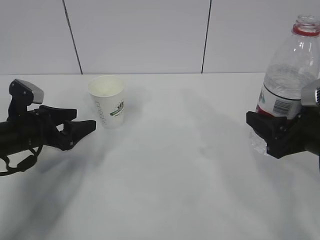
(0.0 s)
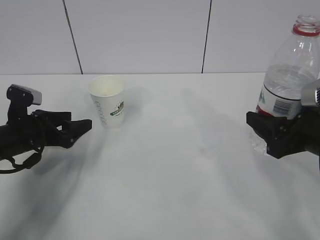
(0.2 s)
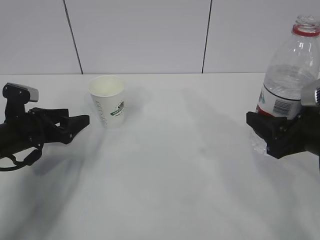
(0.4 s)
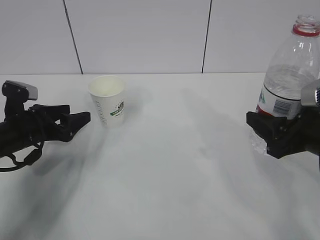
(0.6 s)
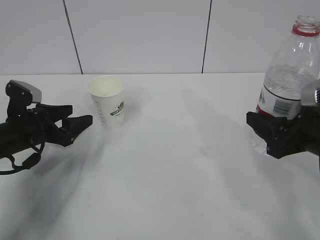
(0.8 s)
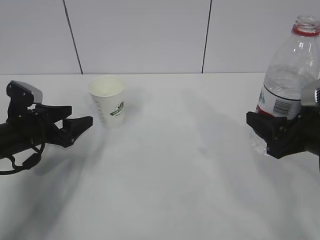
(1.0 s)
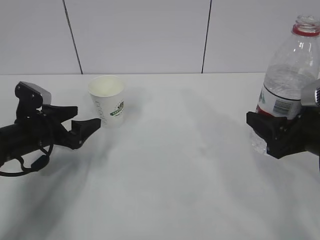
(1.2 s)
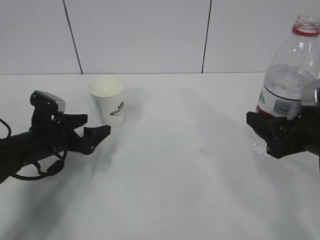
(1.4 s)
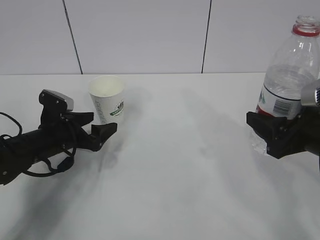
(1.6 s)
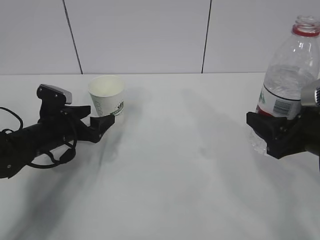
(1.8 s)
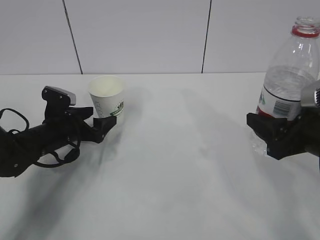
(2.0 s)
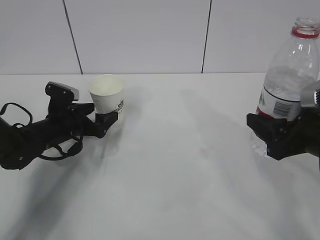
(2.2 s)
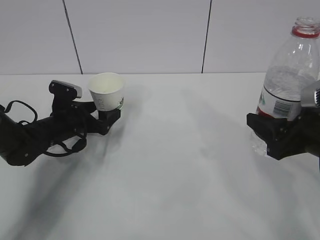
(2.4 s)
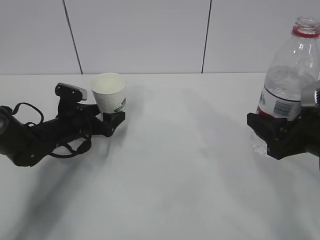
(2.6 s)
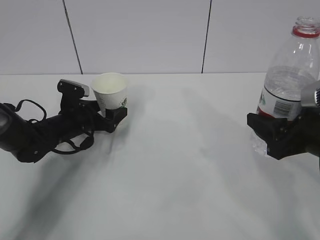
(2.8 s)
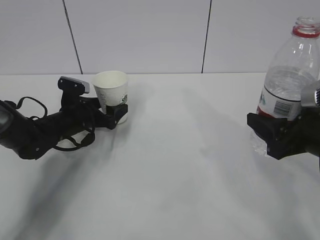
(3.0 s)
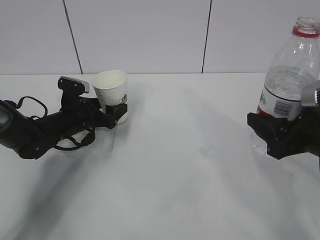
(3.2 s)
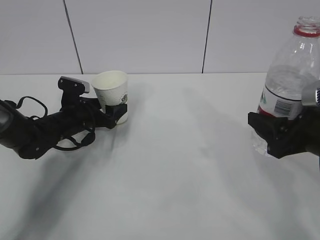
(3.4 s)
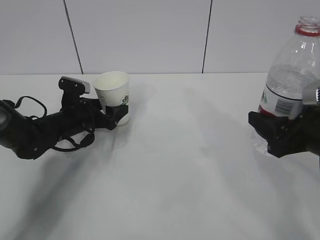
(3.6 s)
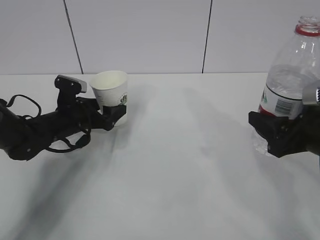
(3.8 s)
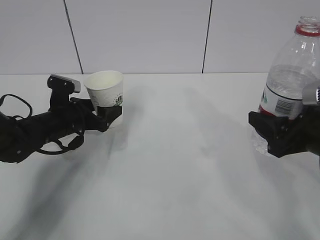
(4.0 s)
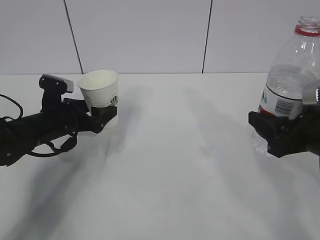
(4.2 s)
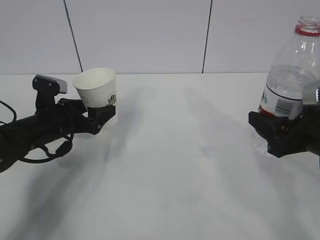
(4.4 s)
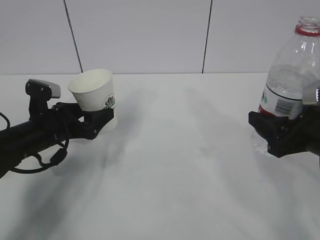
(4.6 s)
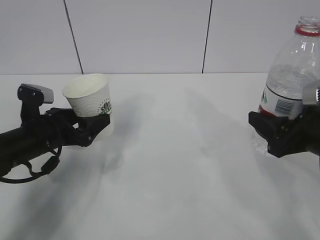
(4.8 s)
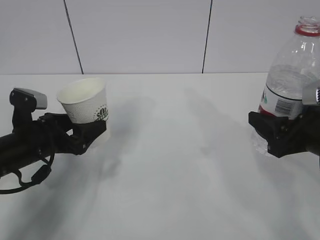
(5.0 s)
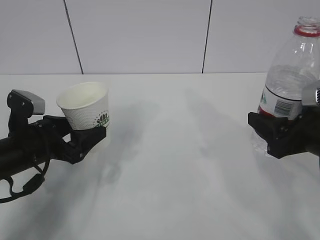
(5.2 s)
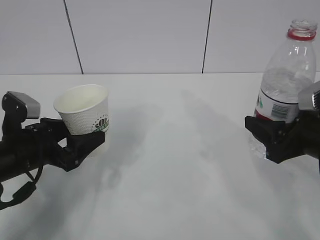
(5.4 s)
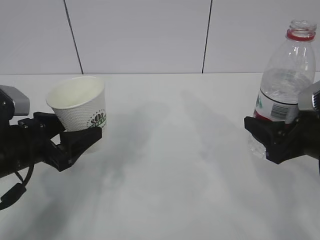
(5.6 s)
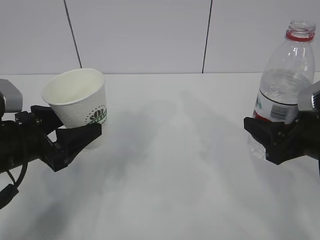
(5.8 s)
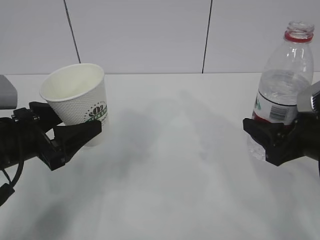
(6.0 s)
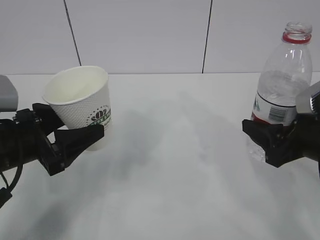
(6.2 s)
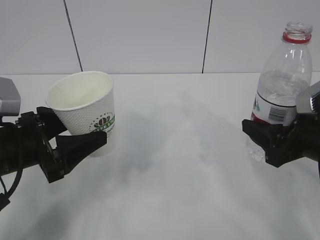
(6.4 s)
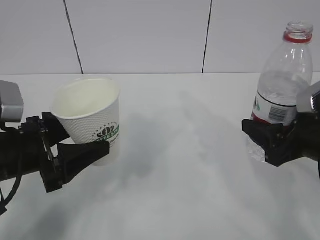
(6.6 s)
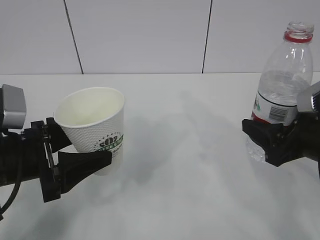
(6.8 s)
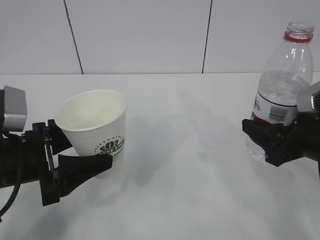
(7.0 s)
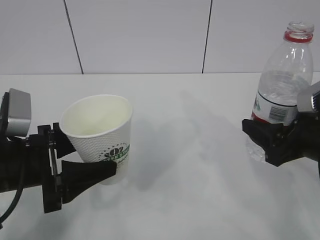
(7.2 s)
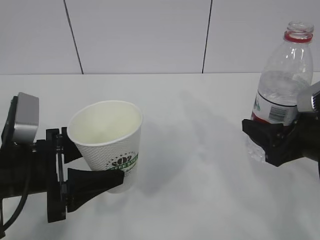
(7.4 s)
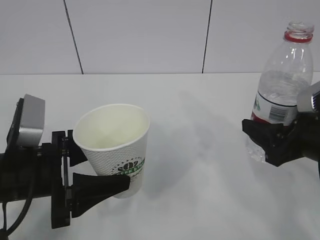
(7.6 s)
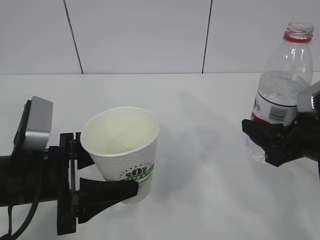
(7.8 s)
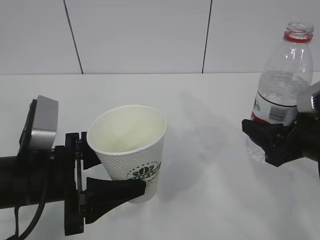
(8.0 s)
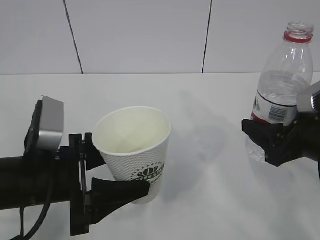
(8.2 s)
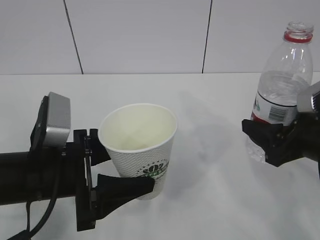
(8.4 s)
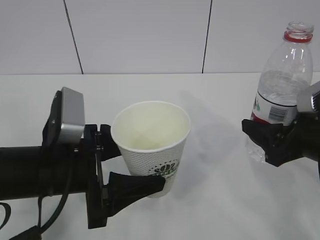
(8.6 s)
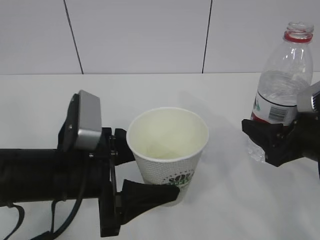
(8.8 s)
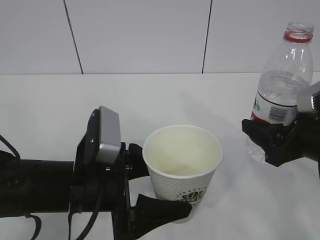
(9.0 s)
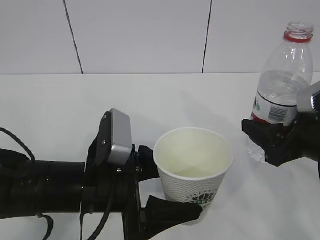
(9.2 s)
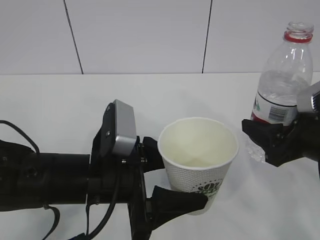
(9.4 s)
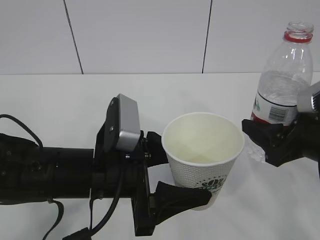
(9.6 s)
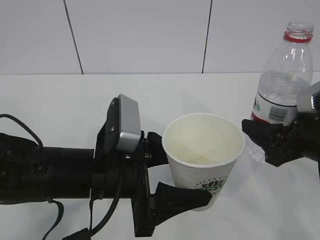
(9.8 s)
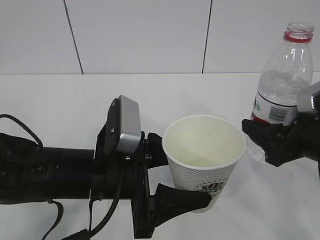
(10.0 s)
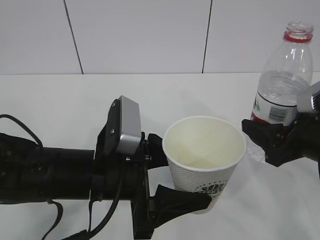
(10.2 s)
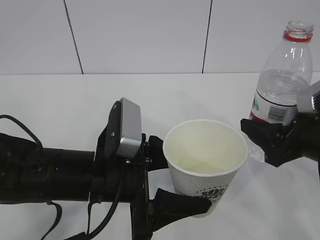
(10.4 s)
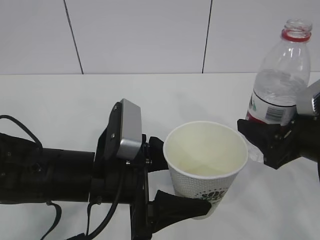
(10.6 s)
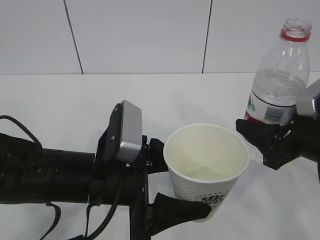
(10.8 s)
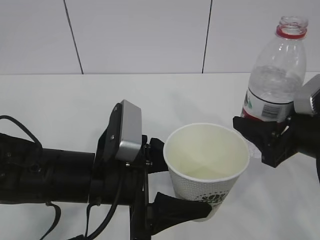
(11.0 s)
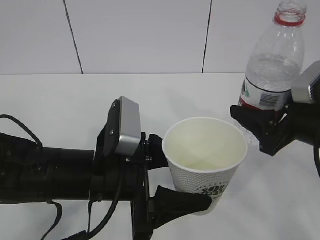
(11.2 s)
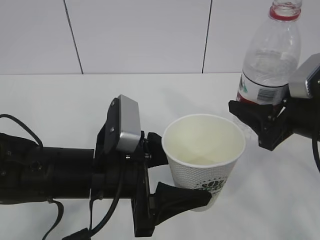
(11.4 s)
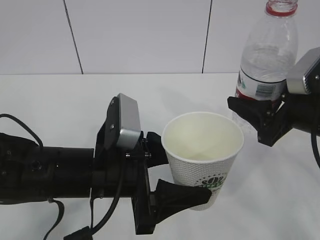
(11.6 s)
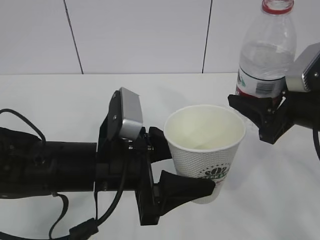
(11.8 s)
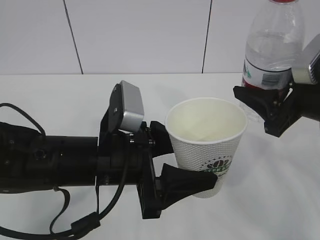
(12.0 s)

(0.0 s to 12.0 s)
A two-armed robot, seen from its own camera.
0.0 s - 1.6 s: The left gripper shifts by approximately 5 cm, and opens.
1.6 s - 3.0 s: The left gripper is displaced forward by roughly 5 cm.
3.0 s - 4.4 s: The left gripper goes about 5 cm backward, and closes.
4.4 s - 6.0 s: The left gripper moves backward and upward, roughly 15 cm.
6.0 s - 7.6 s: The left gripper ends up about 5 cm from where it was.
7.6 s - 9.0 s: The left gripper is displaced to the right by roughly 10 cm.
9.0 s - 10.4 s: The grippers move only a little.
10.4 s - 12.0 s: The right gripper is displaced upward by some 5 cm.

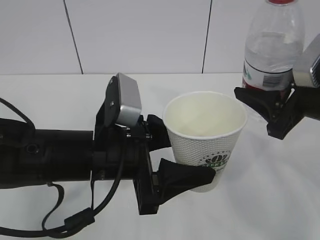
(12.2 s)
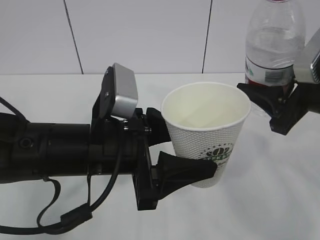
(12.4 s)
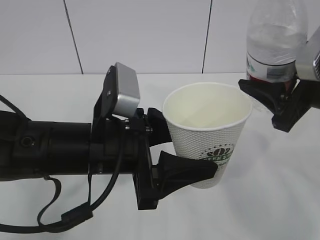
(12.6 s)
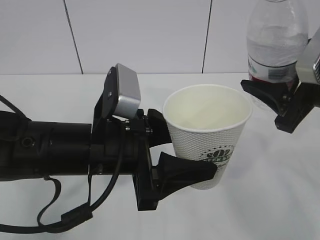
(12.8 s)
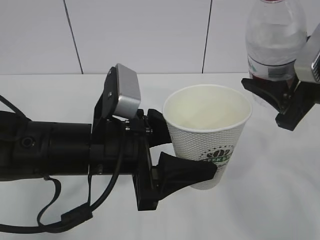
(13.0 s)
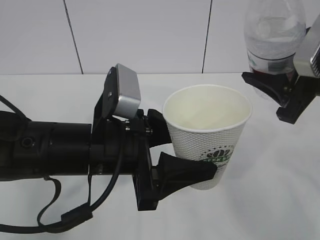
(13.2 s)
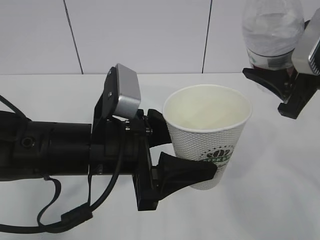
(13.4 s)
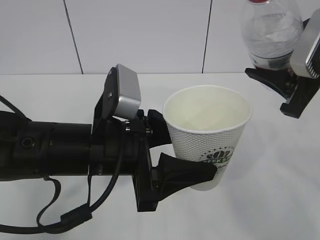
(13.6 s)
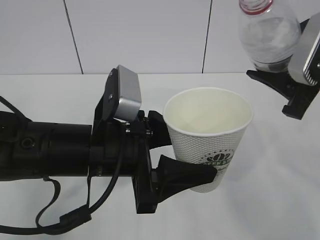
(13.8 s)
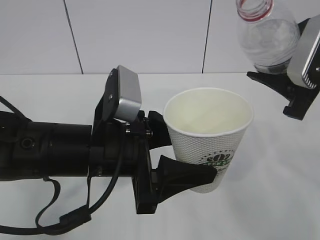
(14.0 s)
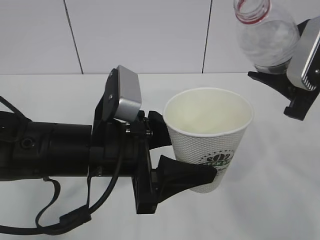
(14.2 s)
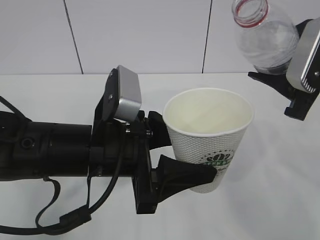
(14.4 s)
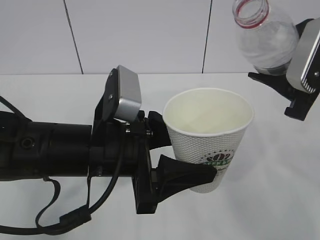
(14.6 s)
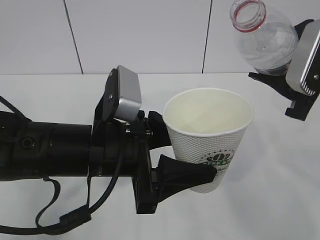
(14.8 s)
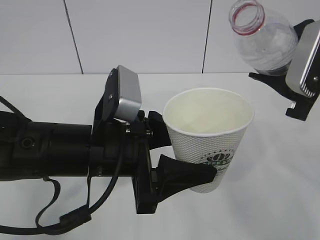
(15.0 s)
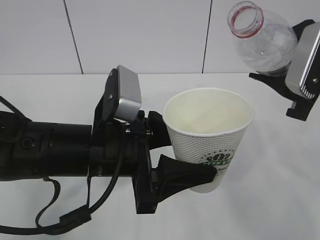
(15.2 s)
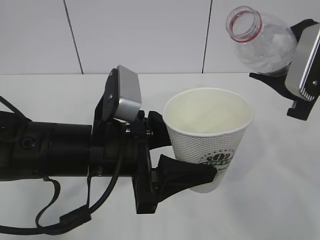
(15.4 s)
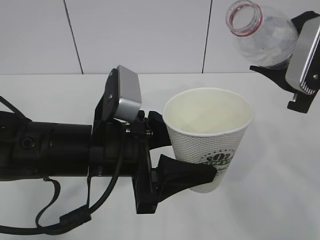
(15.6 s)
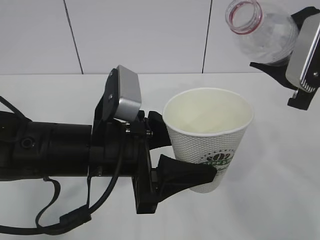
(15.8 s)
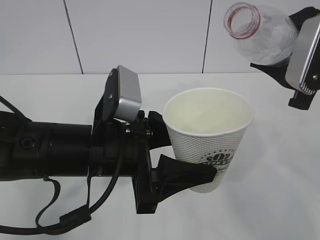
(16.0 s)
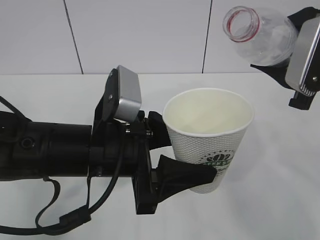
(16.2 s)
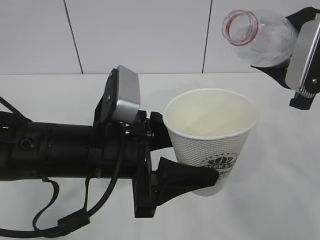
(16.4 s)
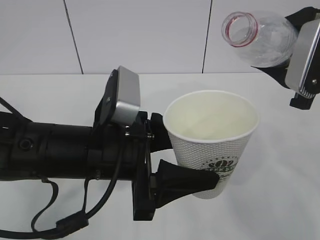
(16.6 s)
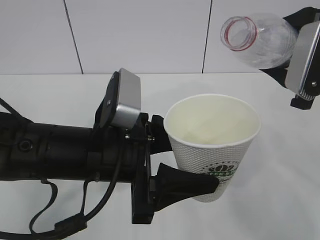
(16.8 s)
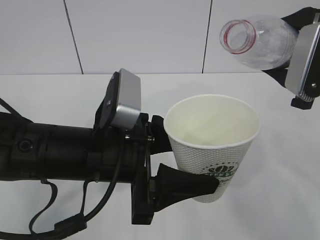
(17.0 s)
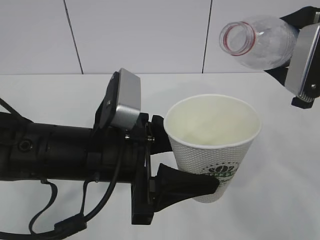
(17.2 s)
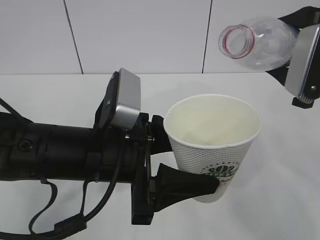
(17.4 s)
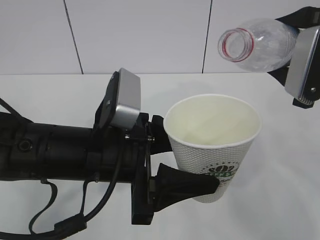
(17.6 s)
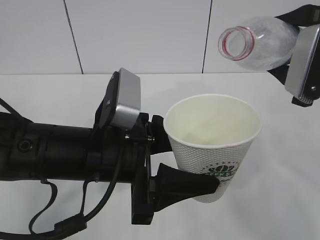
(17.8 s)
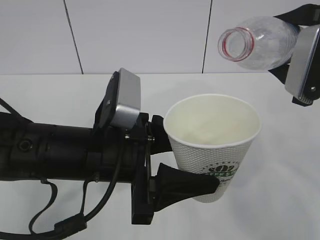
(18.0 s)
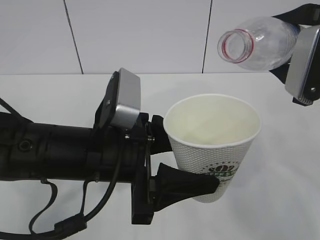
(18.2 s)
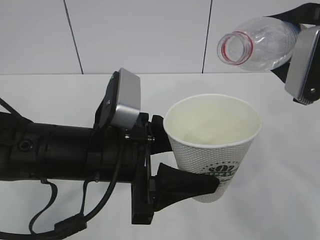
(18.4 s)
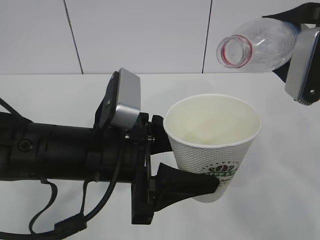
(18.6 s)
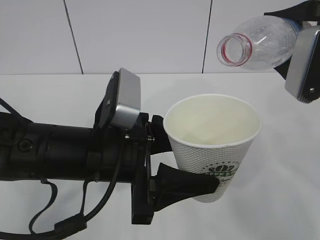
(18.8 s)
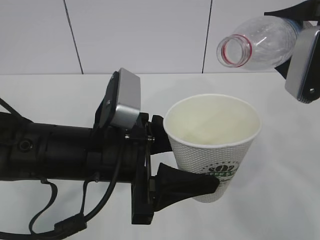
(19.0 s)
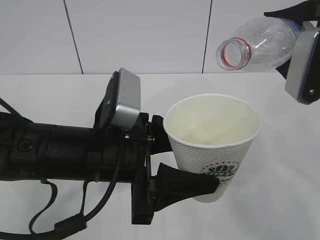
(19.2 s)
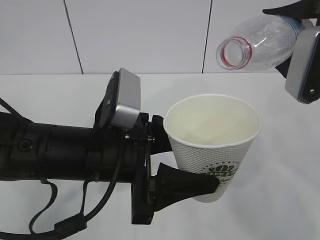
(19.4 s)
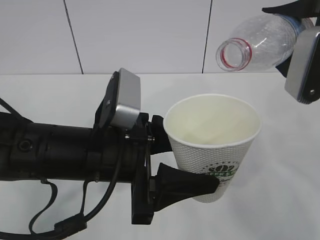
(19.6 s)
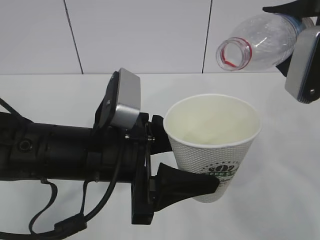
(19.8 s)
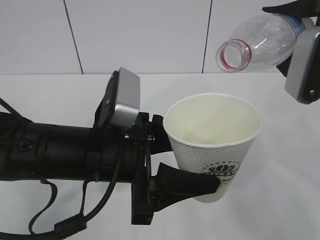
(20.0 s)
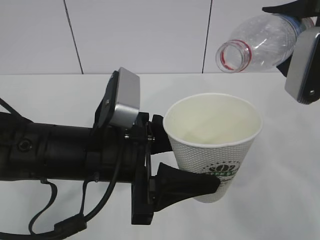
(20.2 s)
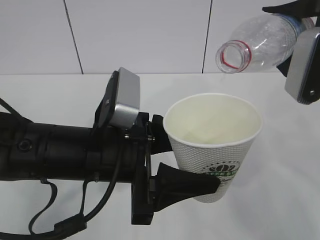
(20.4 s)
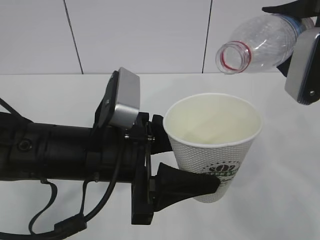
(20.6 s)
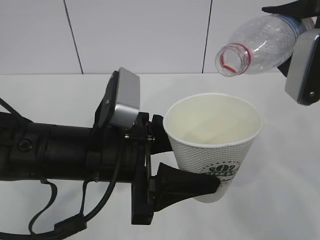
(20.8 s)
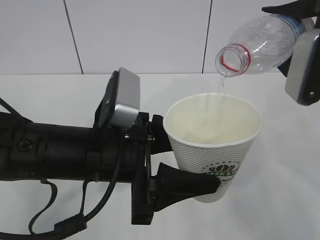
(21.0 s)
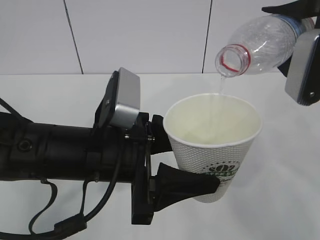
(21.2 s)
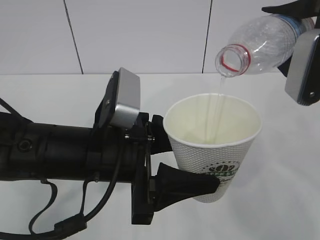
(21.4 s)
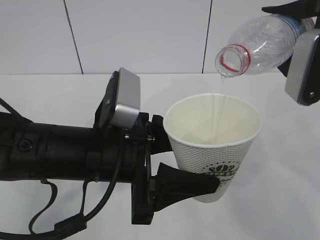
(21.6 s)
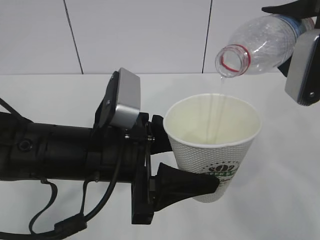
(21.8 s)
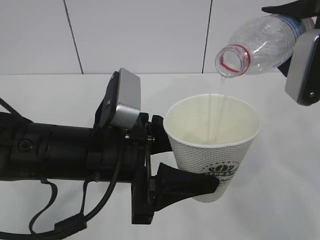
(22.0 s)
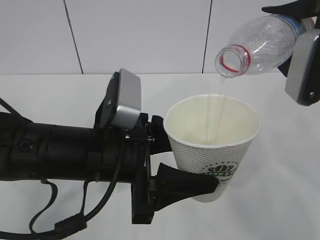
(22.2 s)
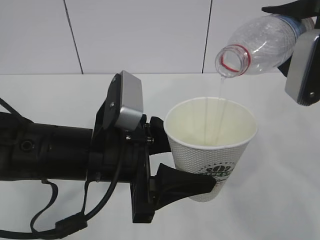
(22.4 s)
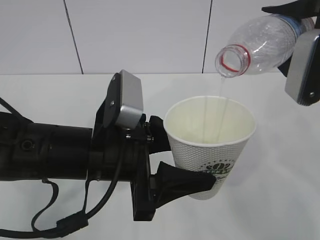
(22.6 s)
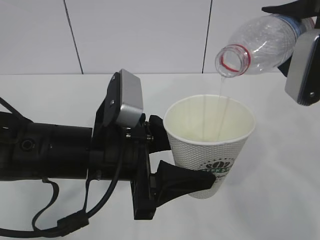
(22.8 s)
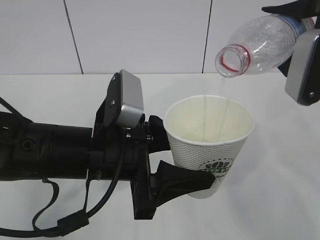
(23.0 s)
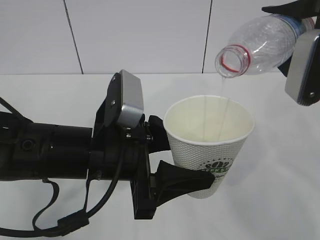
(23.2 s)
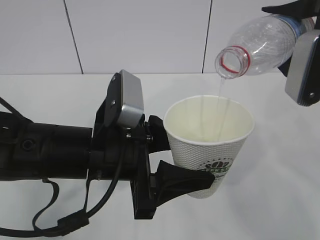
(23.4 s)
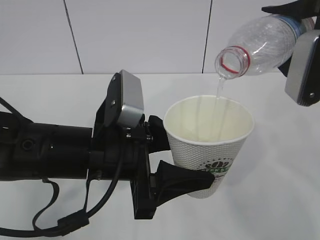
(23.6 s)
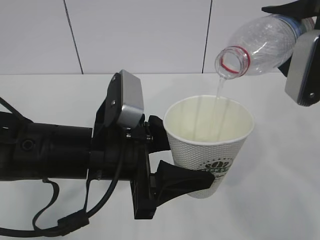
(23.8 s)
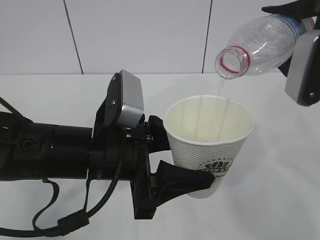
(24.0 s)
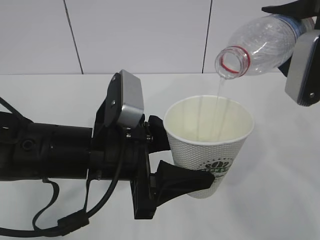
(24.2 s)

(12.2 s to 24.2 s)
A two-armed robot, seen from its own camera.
13.8 s - 16.6 s: There are only small adjustments of the grippers.
16.6 s - 19.8 s: There are only small adjustments of the grippers.
19.8 s - 24.2 s: Neither gripper changes place.
